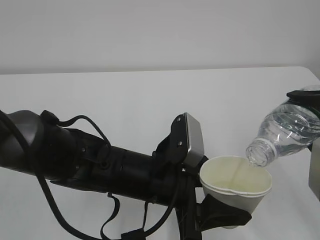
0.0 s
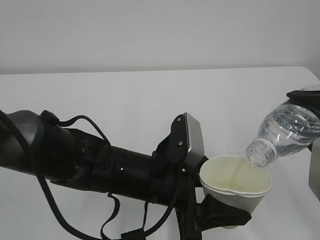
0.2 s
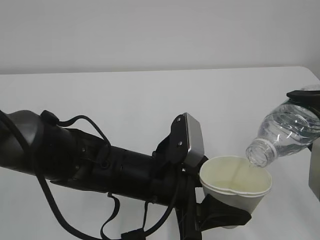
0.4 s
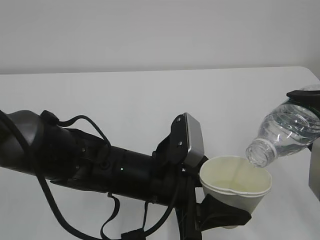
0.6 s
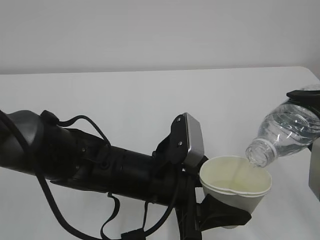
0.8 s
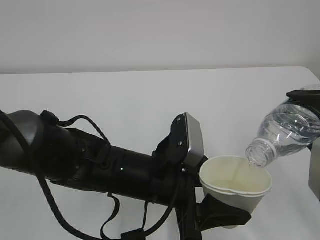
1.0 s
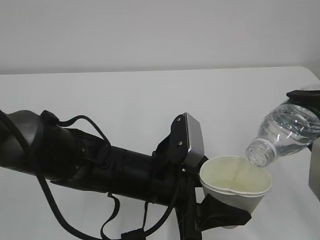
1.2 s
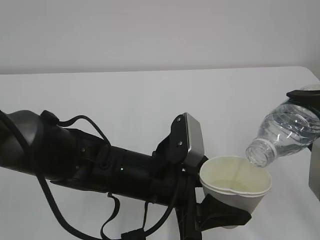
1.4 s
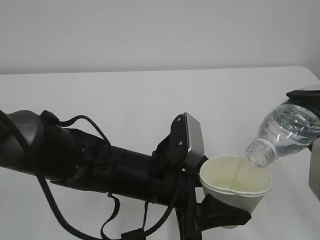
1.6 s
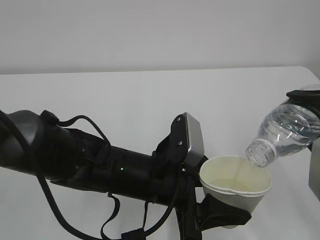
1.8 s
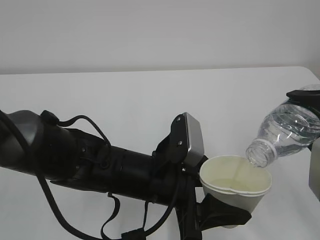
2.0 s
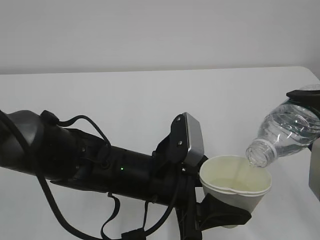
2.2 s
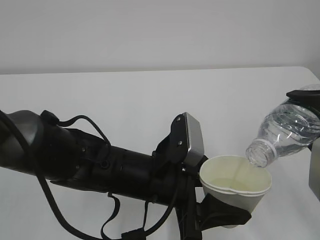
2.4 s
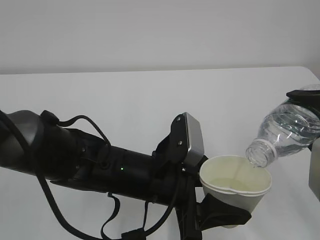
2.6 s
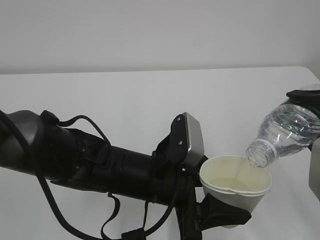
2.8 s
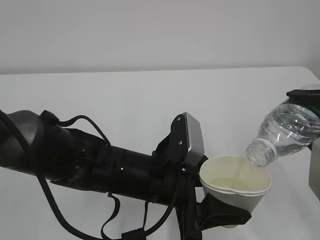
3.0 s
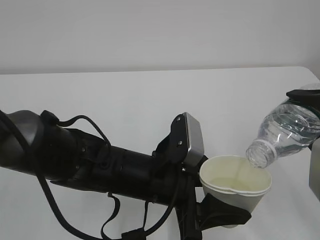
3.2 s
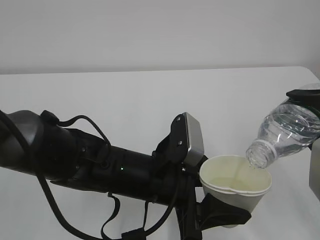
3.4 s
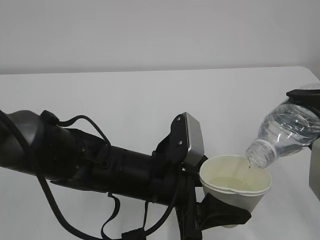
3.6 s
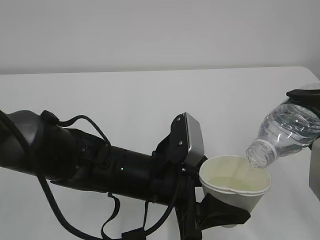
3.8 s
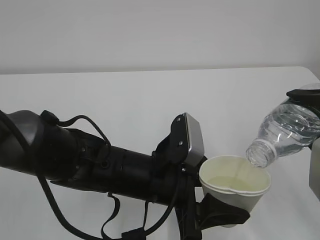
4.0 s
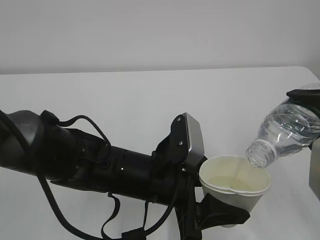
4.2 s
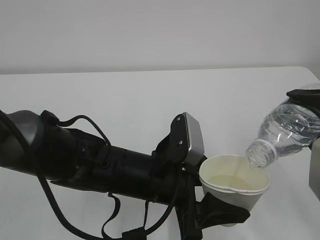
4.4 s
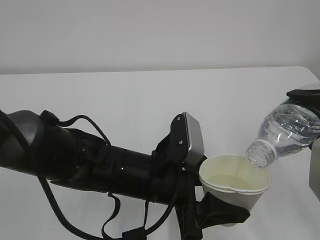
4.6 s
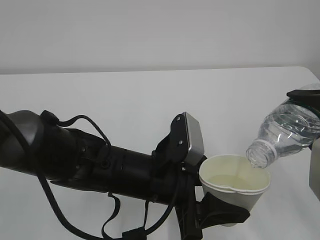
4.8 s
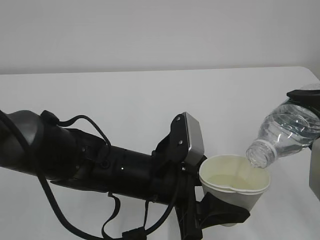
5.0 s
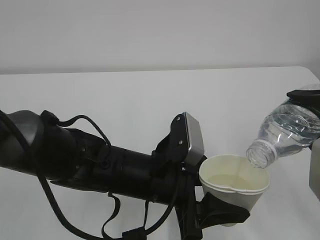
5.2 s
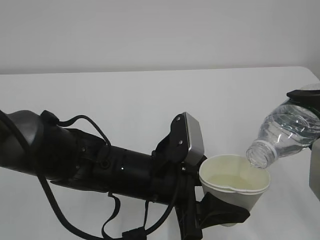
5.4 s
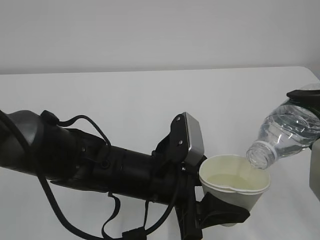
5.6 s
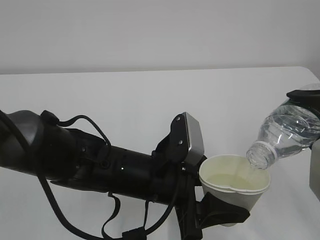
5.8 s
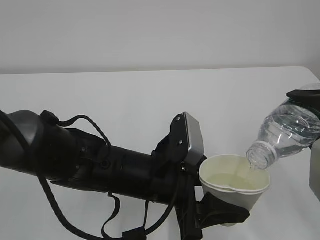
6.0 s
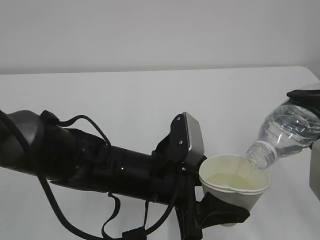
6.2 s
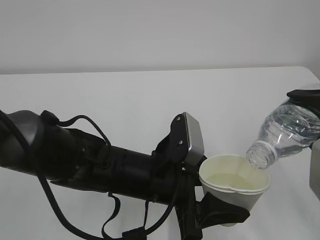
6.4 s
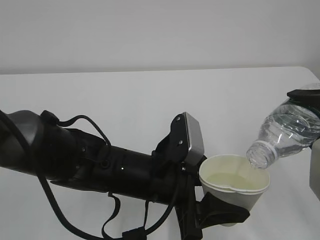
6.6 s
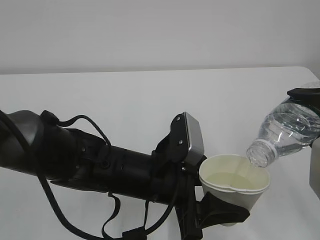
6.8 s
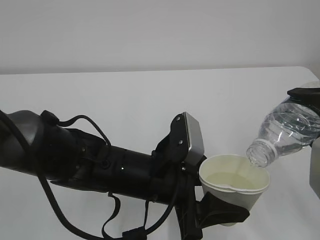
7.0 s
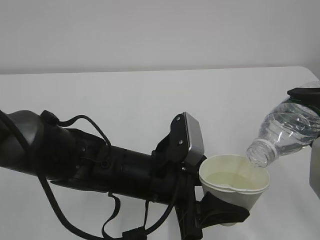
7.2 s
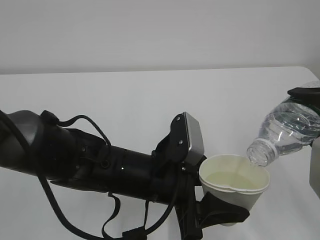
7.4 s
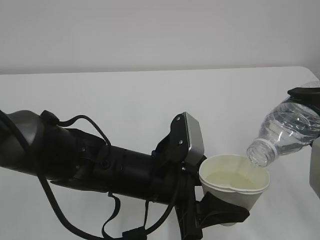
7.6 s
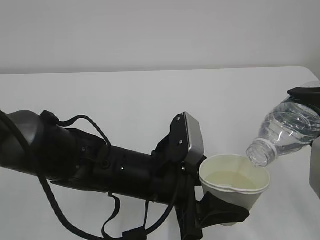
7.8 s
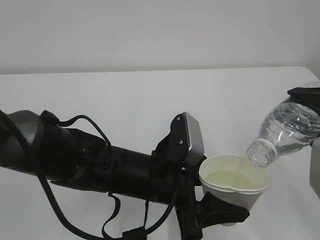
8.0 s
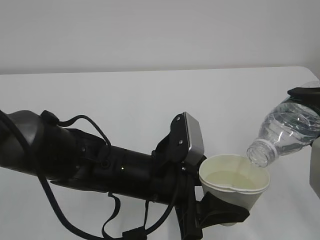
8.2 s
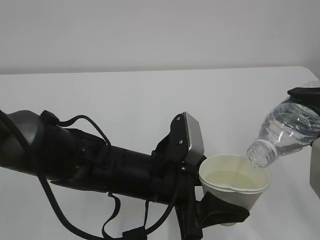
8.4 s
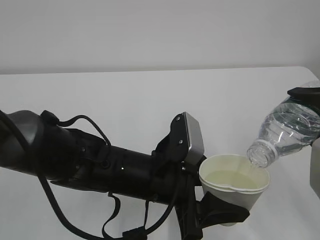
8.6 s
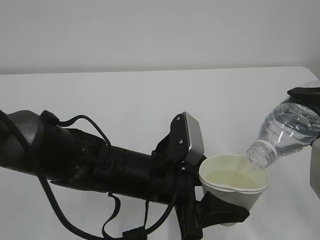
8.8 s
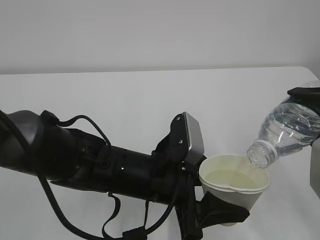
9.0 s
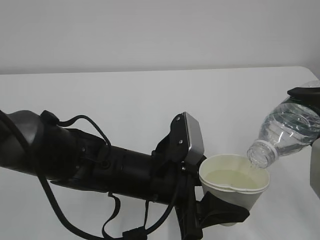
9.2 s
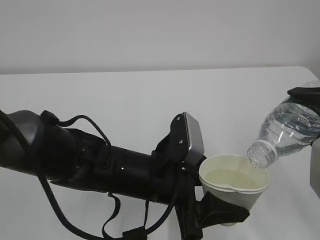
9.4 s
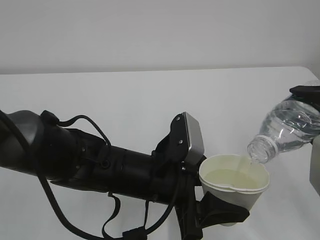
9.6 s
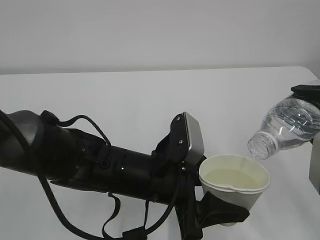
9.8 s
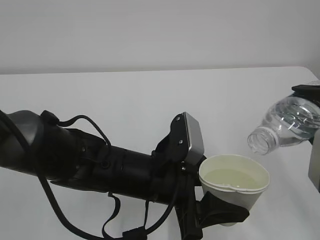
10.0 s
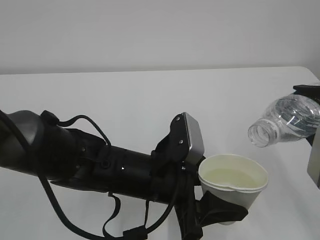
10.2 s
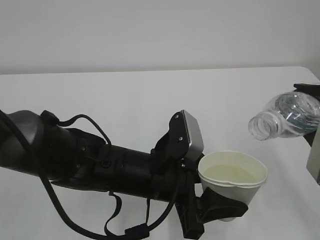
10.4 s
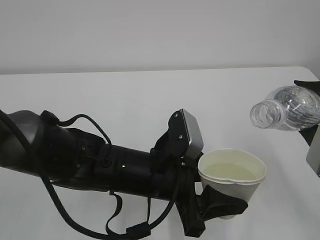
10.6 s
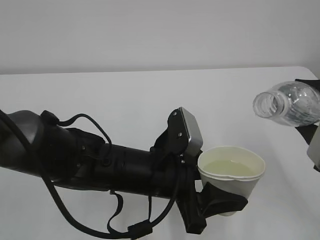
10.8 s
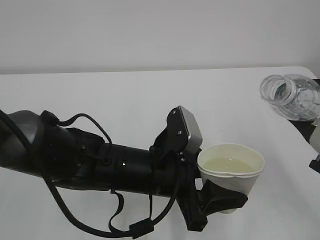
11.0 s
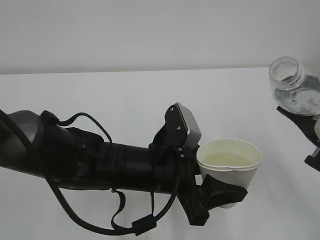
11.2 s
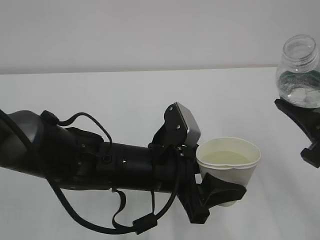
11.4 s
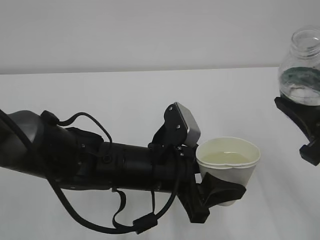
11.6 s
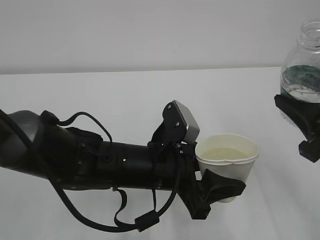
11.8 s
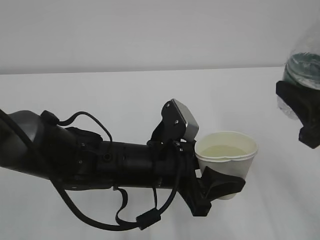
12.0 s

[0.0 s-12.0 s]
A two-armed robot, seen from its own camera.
0.0 to 9.0 s: The two grippers keep their place.
9.0 to 10.4 s: There are only small adjustments of the grippers.

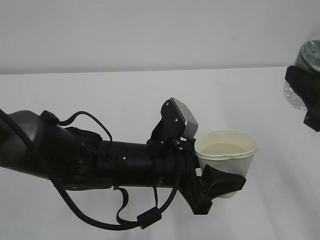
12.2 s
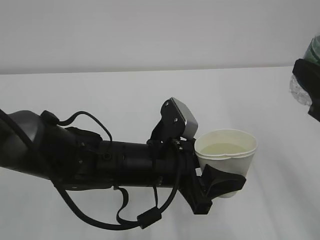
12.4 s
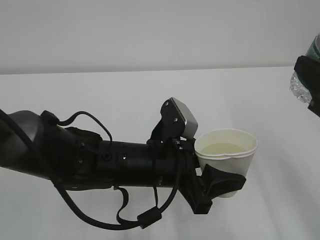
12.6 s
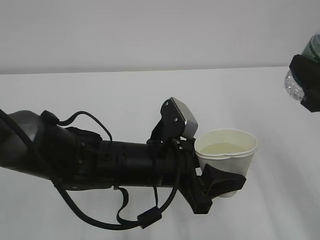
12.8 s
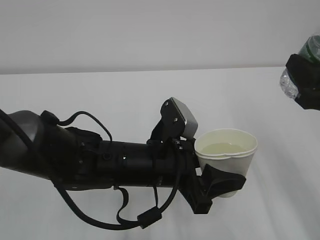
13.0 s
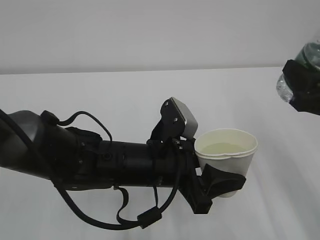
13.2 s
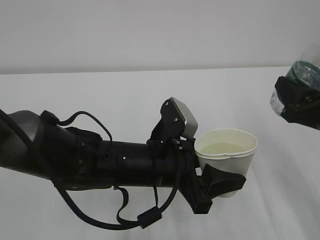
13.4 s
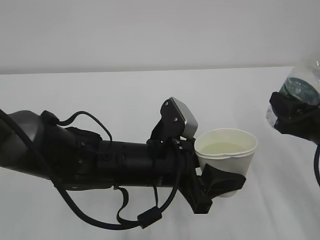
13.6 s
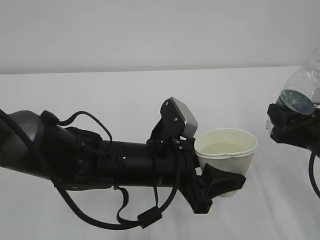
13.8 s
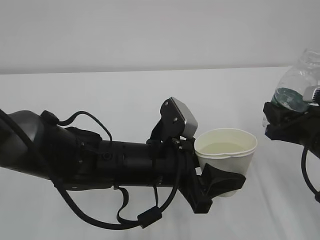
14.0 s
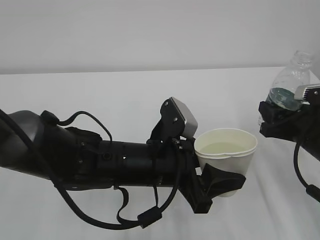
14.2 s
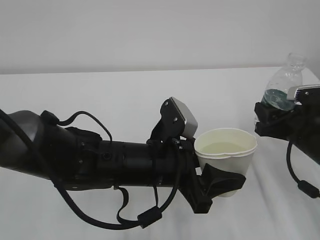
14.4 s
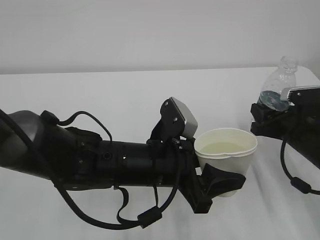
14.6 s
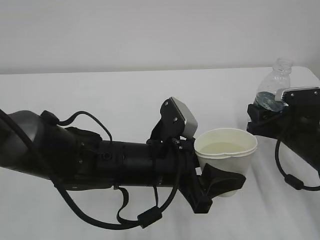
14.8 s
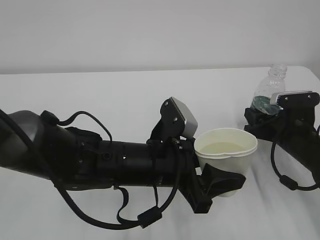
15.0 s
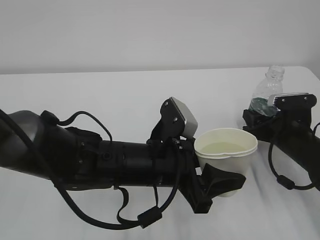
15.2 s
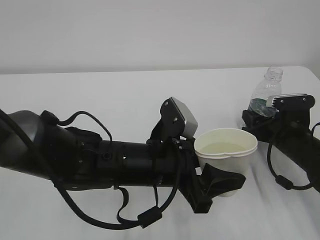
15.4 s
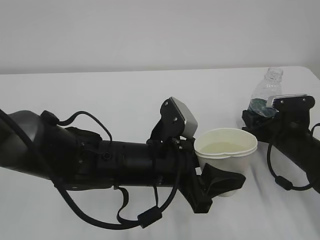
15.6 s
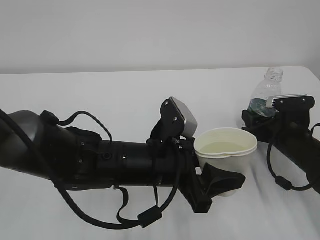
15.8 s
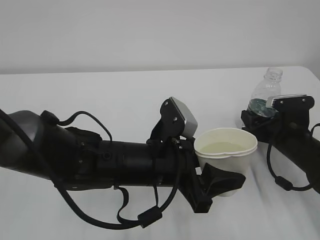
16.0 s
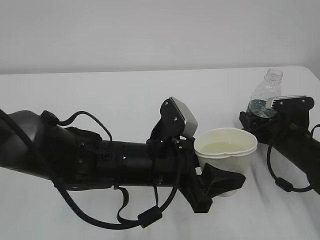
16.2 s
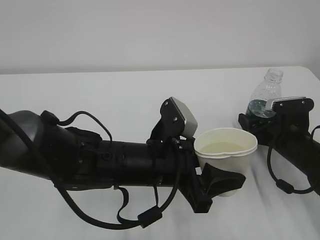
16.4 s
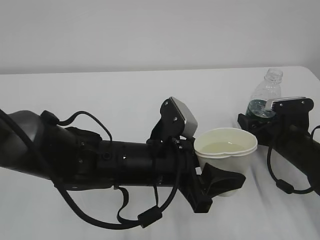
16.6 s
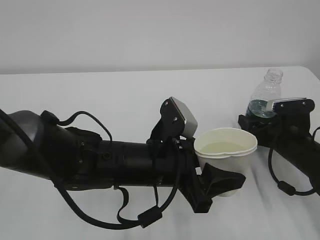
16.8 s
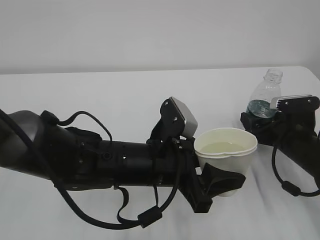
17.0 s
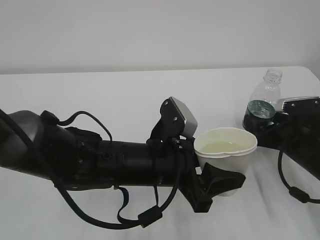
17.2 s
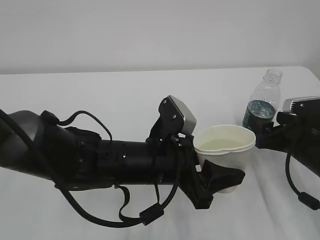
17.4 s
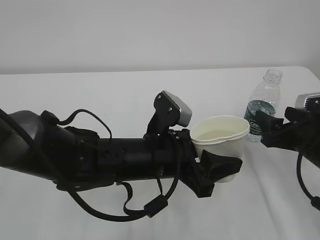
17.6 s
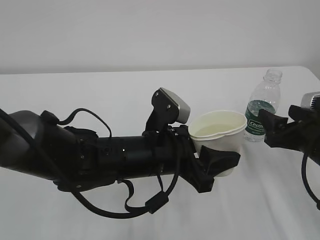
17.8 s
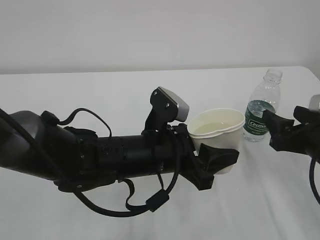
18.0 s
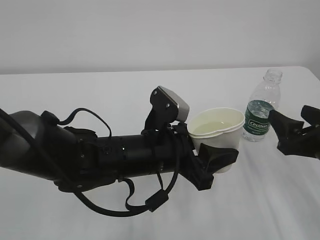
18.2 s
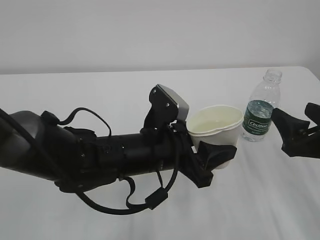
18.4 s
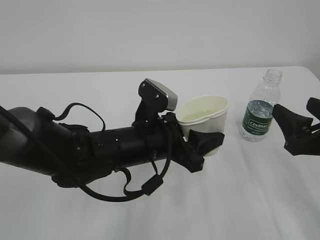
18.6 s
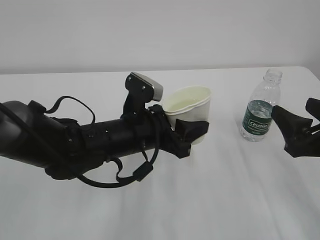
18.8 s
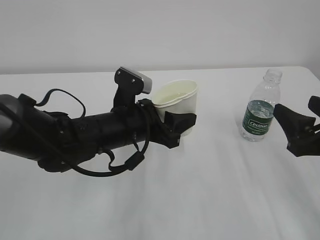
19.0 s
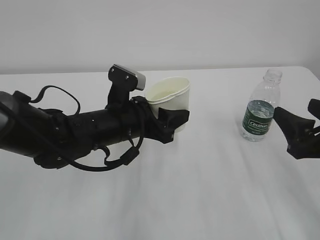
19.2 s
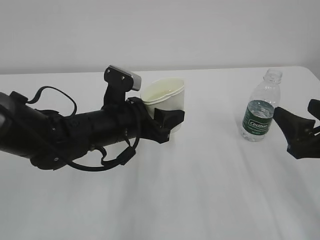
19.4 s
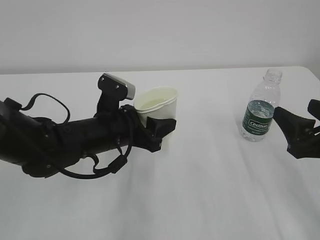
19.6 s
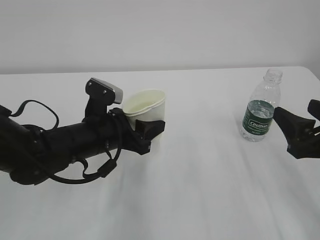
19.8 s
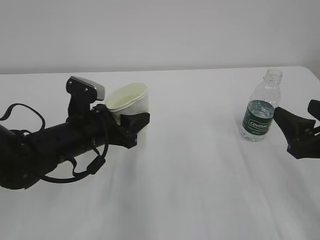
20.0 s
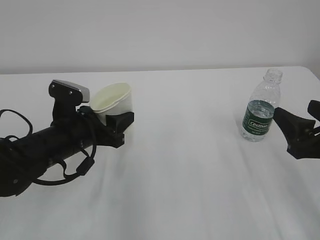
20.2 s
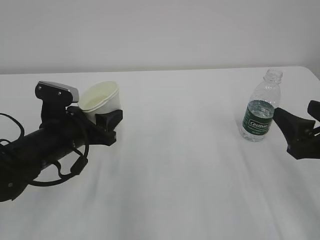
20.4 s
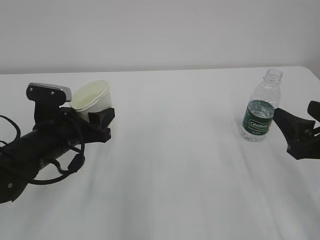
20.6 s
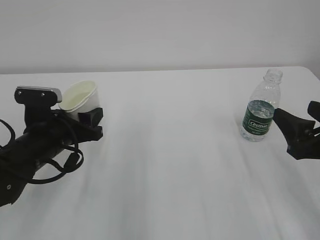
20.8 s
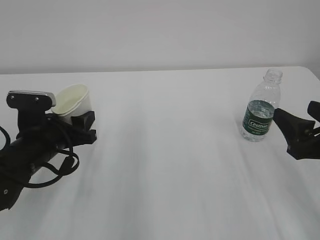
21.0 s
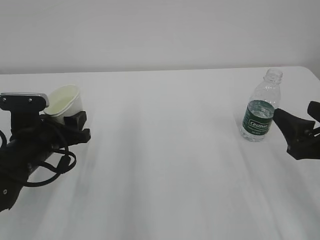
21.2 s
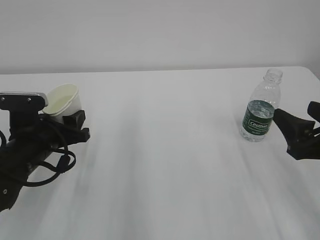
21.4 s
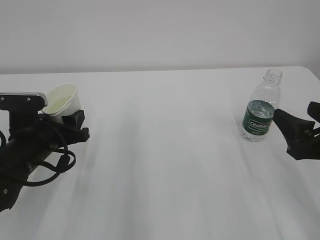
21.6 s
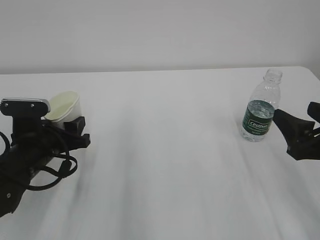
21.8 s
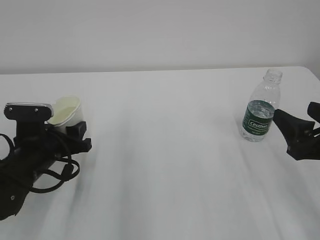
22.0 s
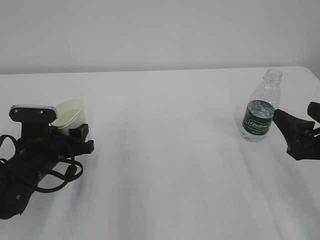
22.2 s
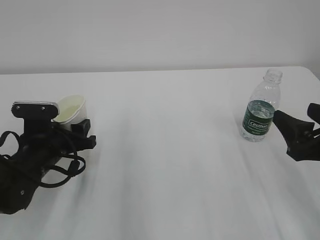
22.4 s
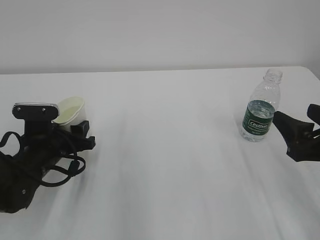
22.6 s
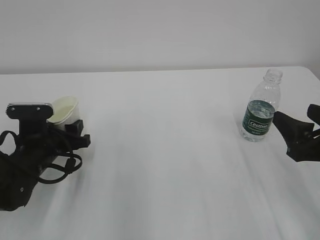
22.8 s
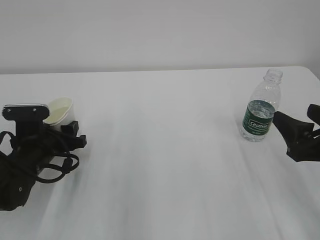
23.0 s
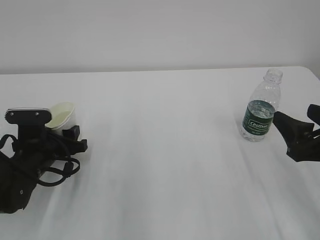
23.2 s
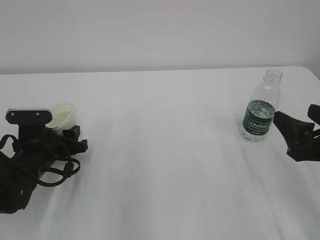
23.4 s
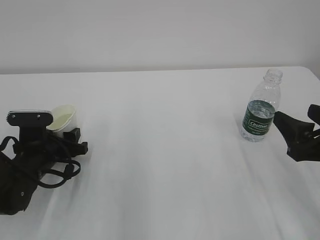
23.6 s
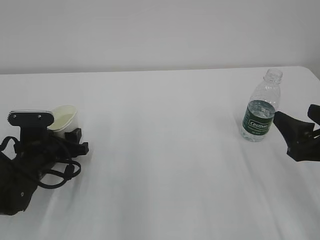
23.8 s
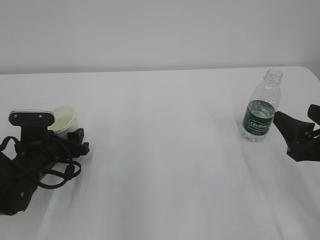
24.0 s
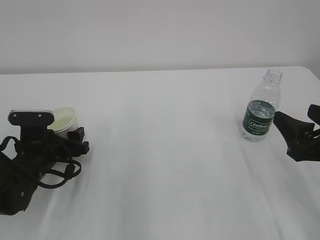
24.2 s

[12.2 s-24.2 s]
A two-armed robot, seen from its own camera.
12.2 to 13.8 s: The right gripper goes some 10 cm downward and forward.
13.8 to 15.2 s: The right gripper heads forward and downward, covering approximately 10 cm.
15.2 to 16.6 s: The right gripper opens.
16.6 to 18.2 s: The right gripper travels backward and upward by approximately 15 cm.
18.2 to 19.8 s: The left gripper shifts about 10 cm to the left and forward.
19.8 to 21.2 s: The left gripper heads to the left, covering some 10 cm.
21.2 to 22.6 s: The grippers make only small movements.
22.6 to 24.2 s: The left gripper opens its fingers.
